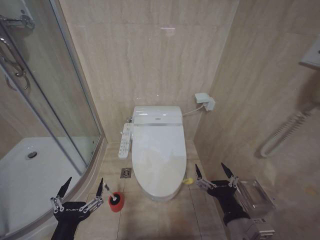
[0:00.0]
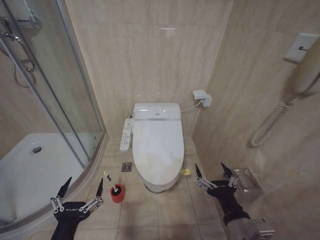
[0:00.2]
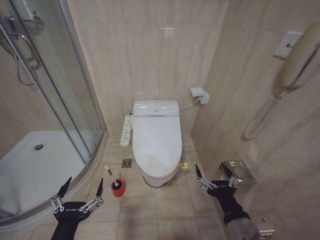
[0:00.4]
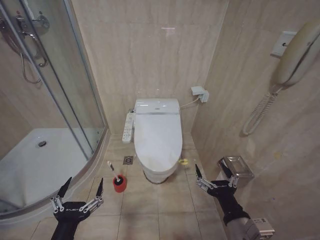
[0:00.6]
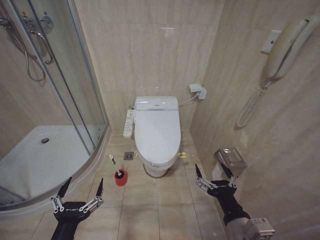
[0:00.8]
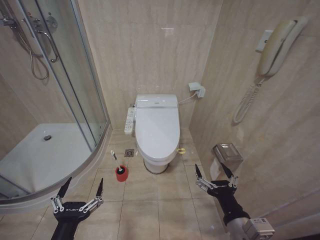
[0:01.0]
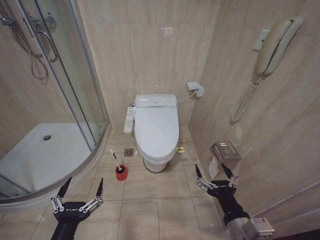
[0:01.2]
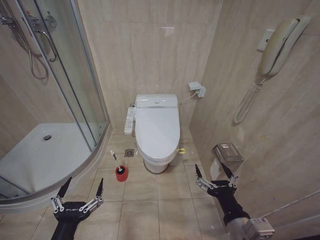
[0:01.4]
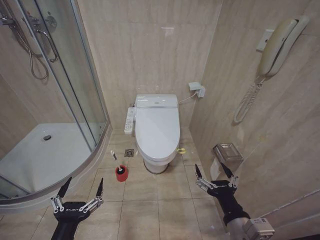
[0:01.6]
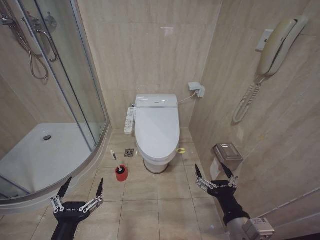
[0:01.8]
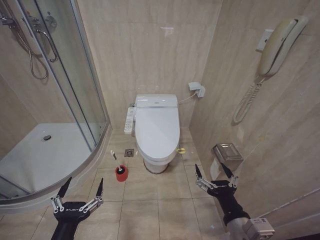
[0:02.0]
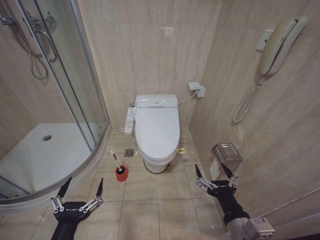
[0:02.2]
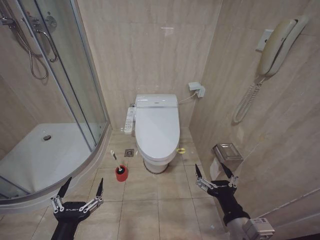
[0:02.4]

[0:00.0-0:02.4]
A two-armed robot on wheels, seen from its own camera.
Task of the whole recording: Open the toilet lid, clean the toilet bowl with a toilet brush, close the toilet lid, and flush.
0:01.2 to 0:02.4: Both grippers stay about where they are.
